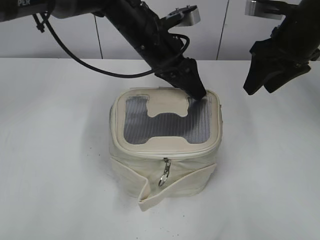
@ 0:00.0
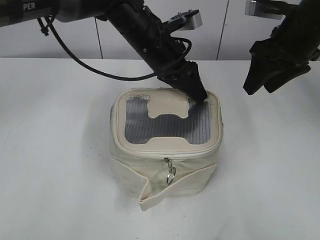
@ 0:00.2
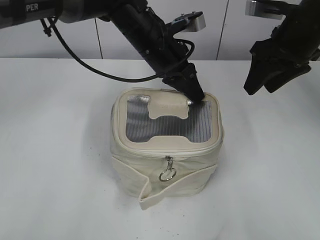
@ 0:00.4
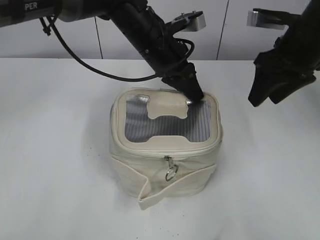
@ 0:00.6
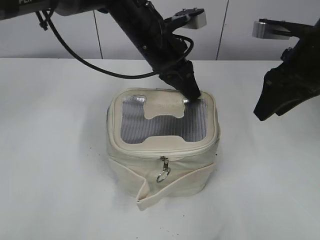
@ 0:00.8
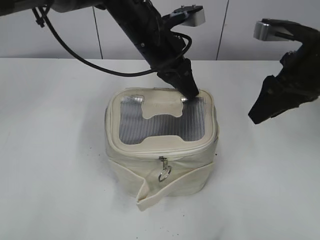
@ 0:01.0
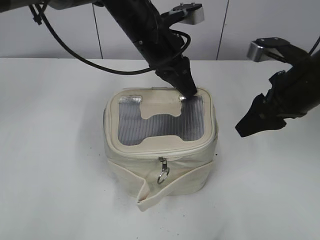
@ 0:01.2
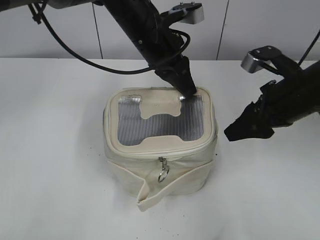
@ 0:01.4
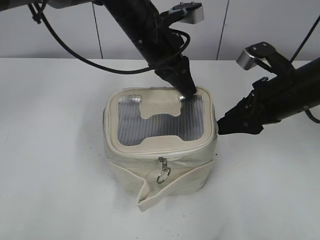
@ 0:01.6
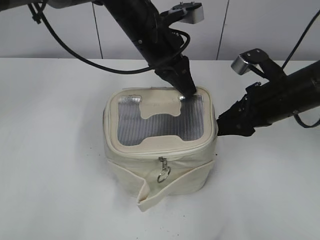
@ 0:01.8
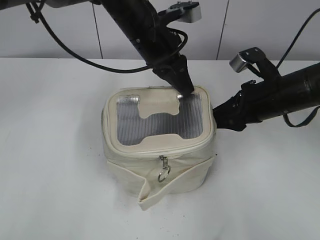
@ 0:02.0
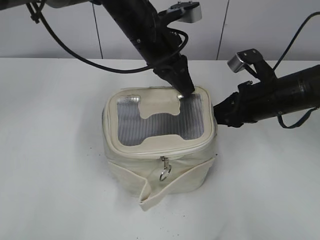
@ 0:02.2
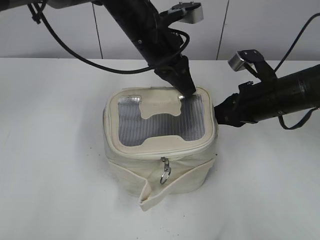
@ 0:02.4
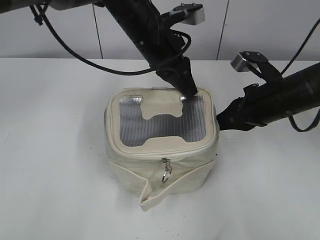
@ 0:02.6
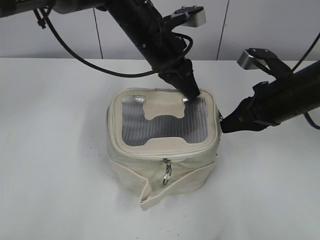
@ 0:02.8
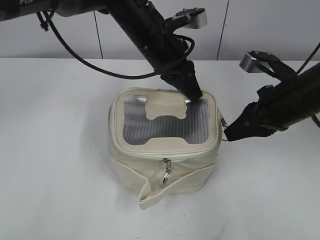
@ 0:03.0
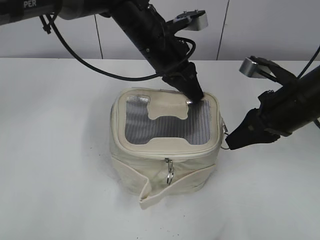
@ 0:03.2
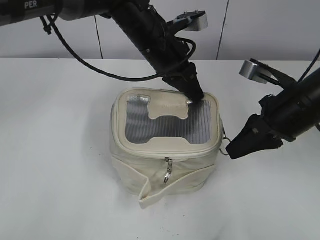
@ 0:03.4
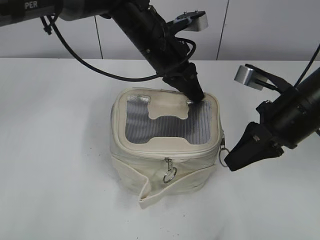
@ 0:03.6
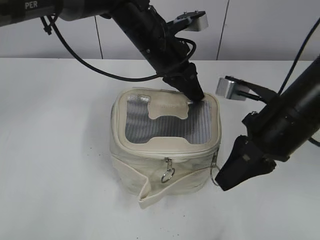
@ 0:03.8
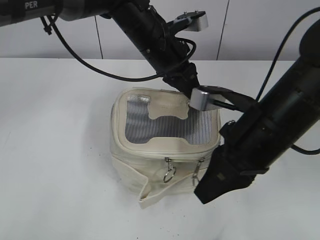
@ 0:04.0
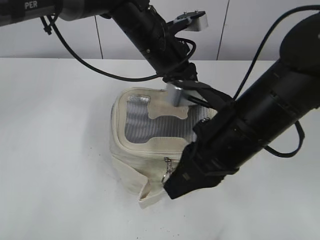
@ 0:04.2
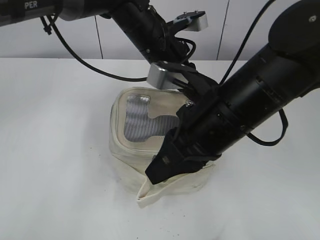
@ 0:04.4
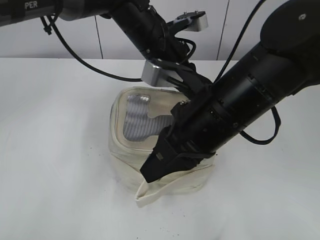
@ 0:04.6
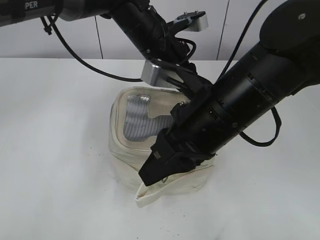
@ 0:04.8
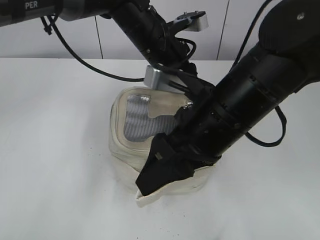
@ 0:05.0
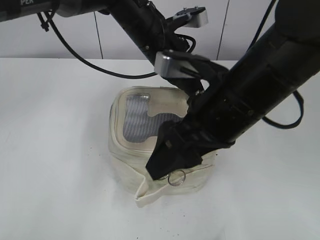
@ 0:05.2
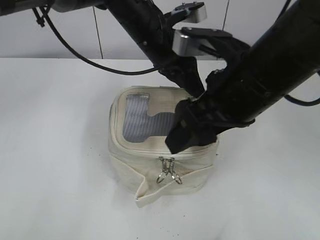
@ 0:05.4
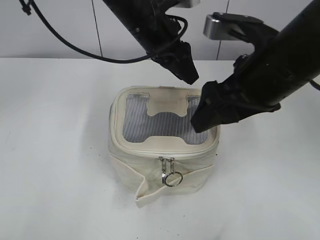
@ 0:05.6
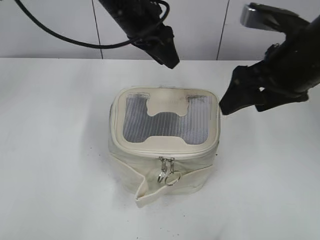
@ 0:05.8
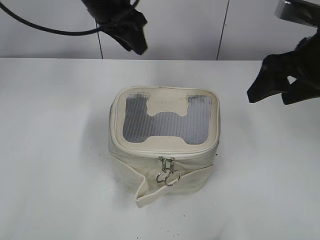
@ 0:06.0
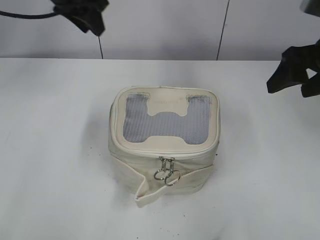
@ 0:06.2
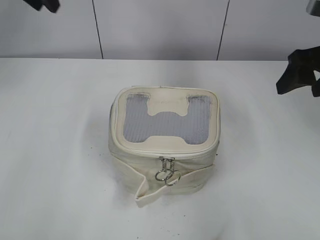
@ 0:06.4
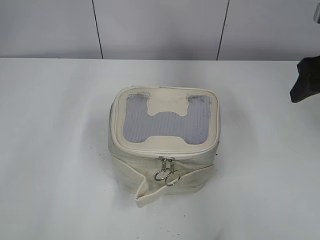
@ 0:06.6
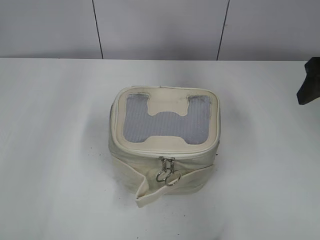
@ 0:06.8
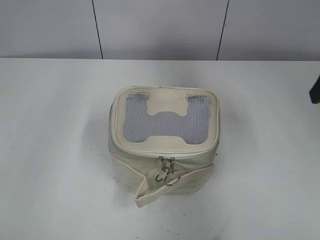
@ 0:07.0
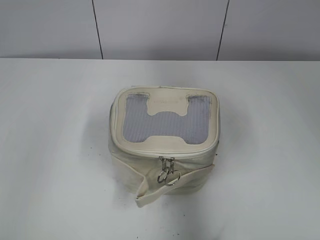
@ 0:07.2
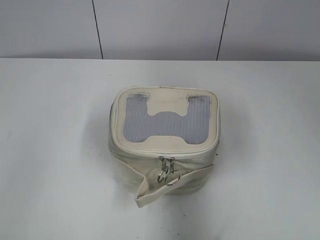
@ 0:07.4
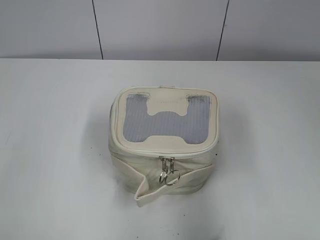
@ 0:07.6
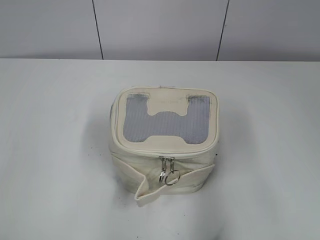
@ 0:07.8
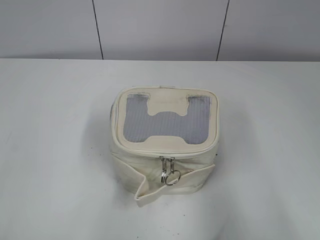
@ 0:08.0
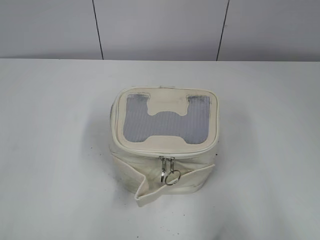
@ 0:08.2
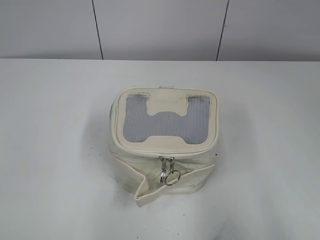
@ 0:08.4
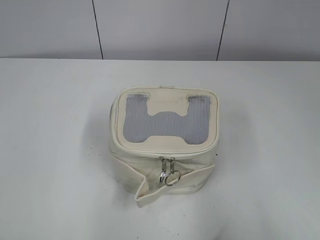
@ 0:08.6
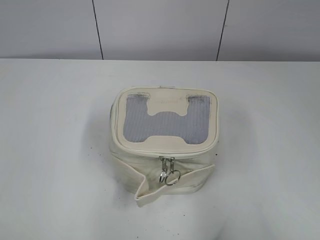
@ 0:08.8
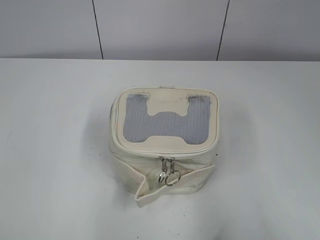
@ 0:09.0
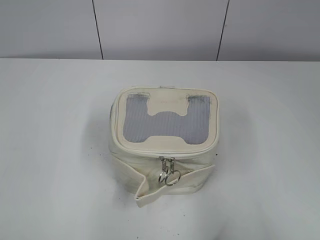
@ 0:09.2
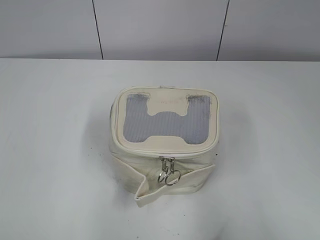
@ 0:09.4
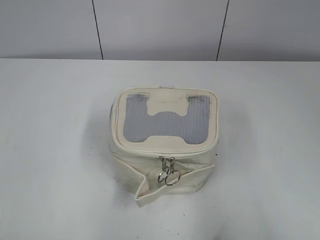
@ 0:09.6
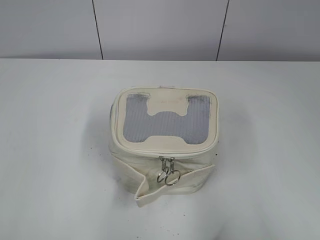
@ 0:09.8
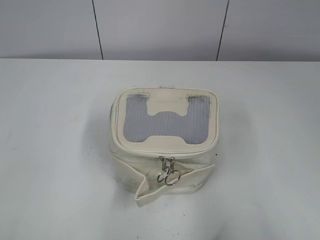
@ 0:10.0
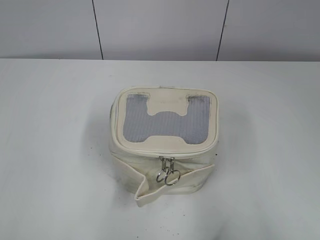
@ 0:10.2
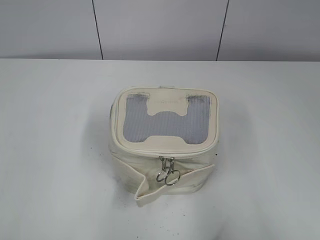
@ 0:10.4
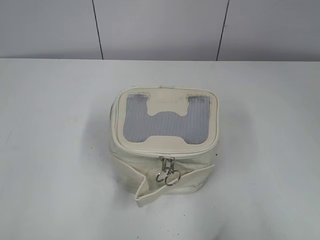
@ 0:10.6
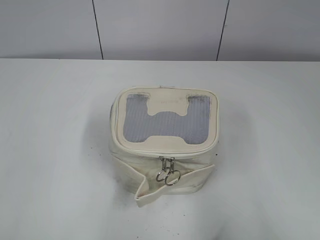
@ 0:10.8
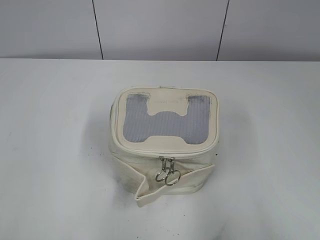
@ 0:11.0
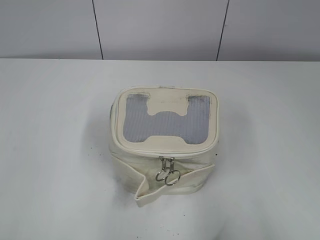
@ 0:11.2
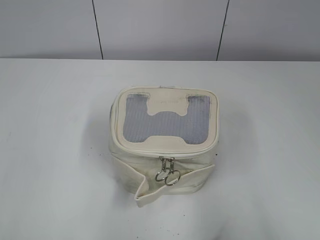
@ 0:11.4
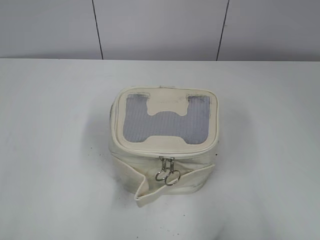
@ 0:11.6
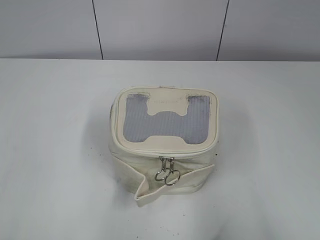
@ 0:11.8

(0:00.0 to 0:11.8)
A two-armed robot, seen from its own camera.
Step, 0:00.0 - 0:04.8: Zip up the bag with your right hand.
Step, 0:05.0 - 0:05.6: Hold the bag with your left hand.
0:00.0 - 0:01.4: The left gripper closes up; the right gripper heads backward and downward, covering roughly 10 cm.
0:01.4 - 0:03.0: The right gripper closes.
0:03.0 - 0:04.4: The right gripper moves to the left and backward, roughly 15 cm.
0:04.4 - 0:06.0: The right gripper goes about 15 cm to the right and forward, and opens its fingers, while the left gripper moves to the left and upward, roughly 10 cm, and opens its fingers.
0:06.0 - 0:07.4: The right gripper goes roughly 10 cm backward and to the right, while the left gripper shifts about 35 cm backward and to the left.
0:07.4 - 0:08.8: The right gripper goes approximately 20 cm backward, while the left gripper travels backward and downward by about 15 cm.
0:10.4 - 0:11.8: Neither gripper changes place.
